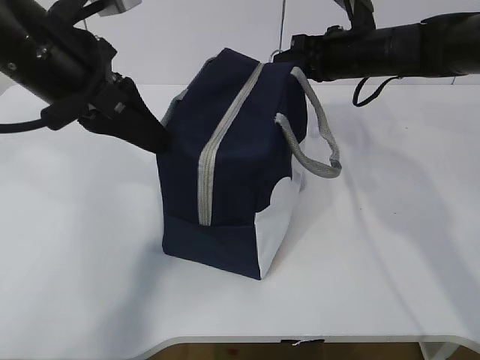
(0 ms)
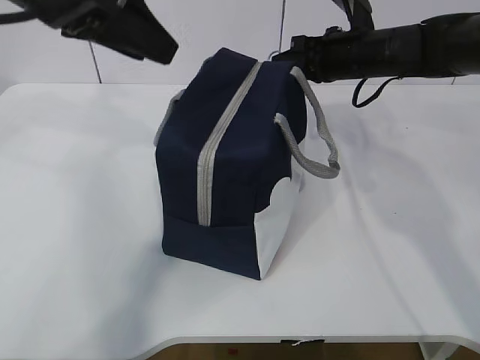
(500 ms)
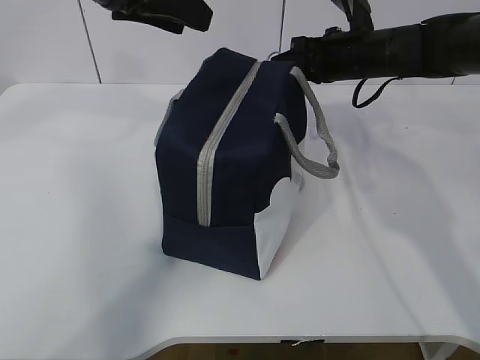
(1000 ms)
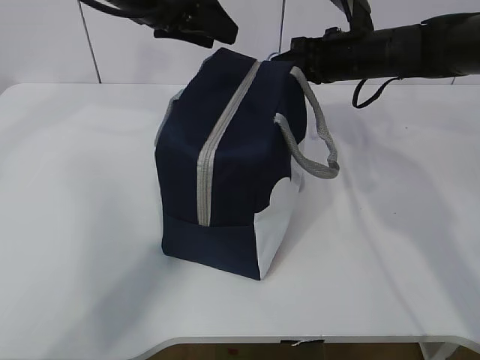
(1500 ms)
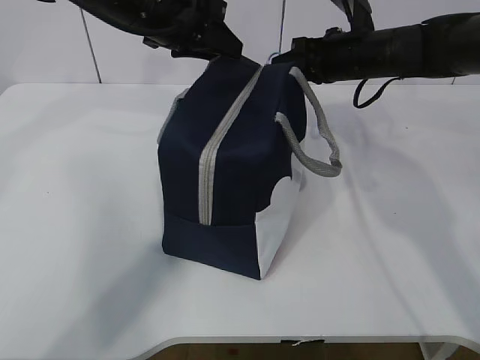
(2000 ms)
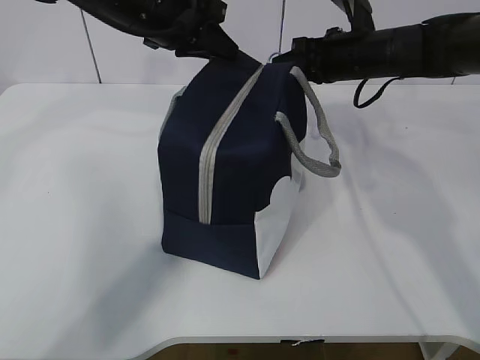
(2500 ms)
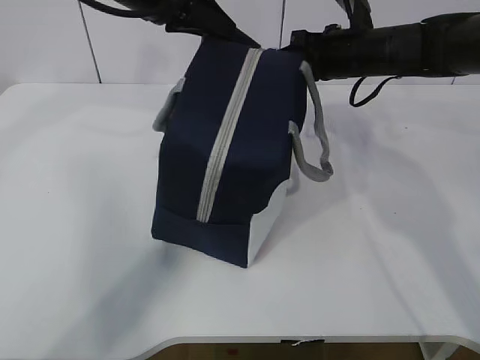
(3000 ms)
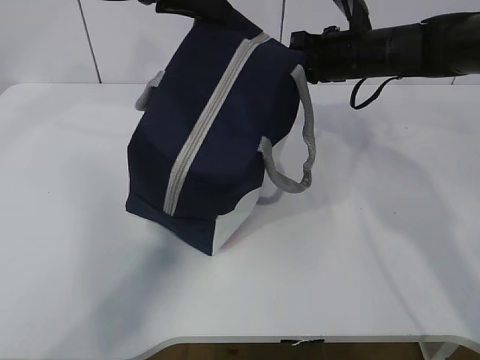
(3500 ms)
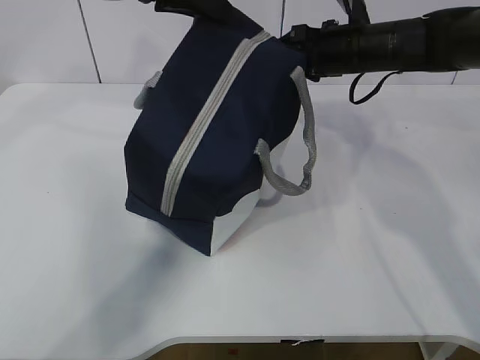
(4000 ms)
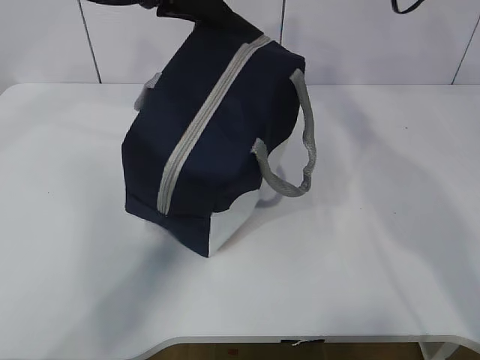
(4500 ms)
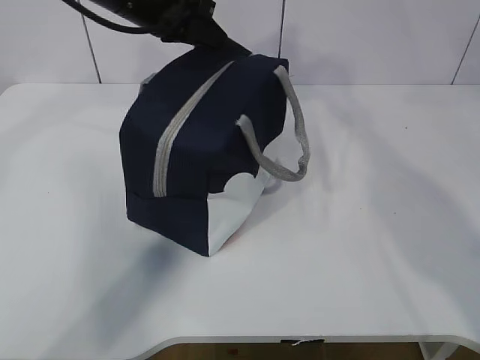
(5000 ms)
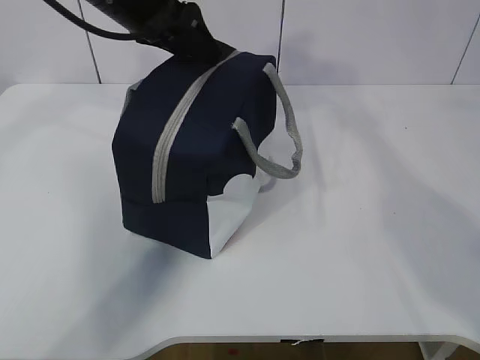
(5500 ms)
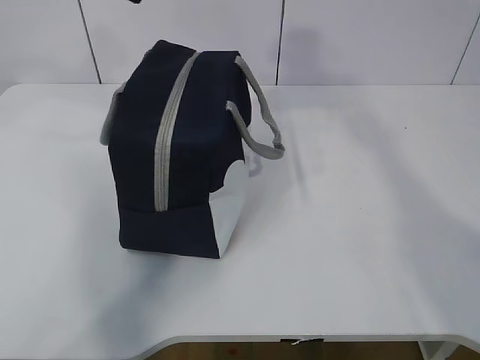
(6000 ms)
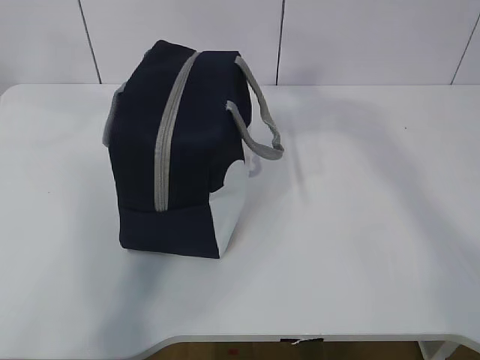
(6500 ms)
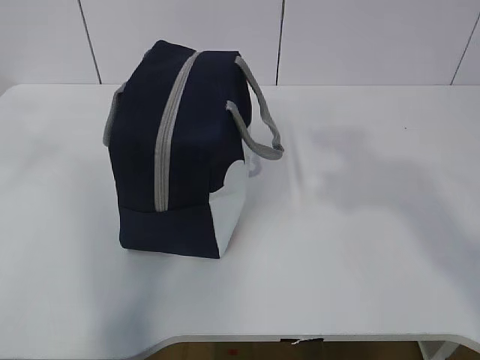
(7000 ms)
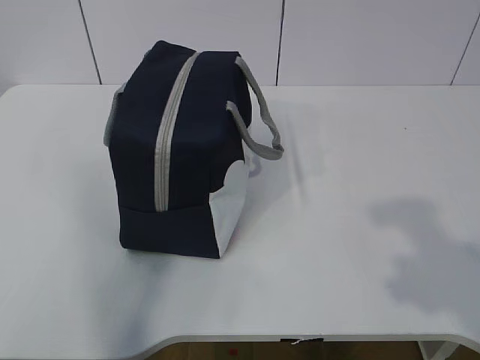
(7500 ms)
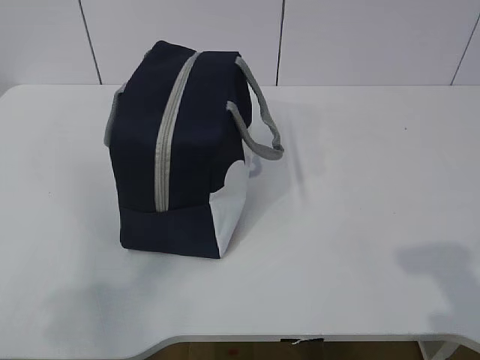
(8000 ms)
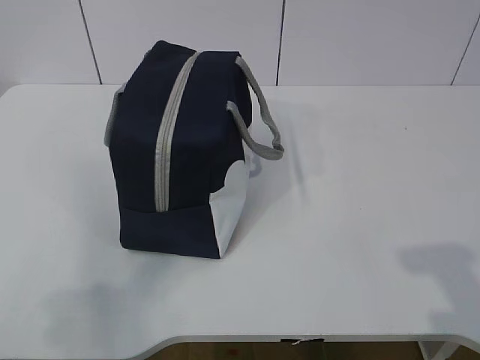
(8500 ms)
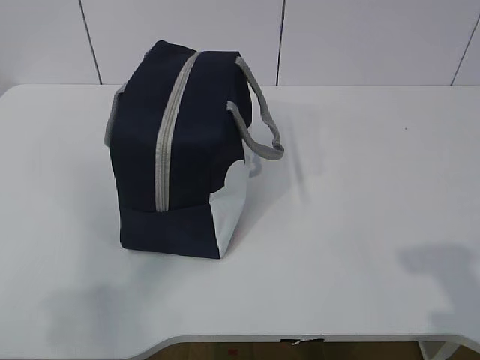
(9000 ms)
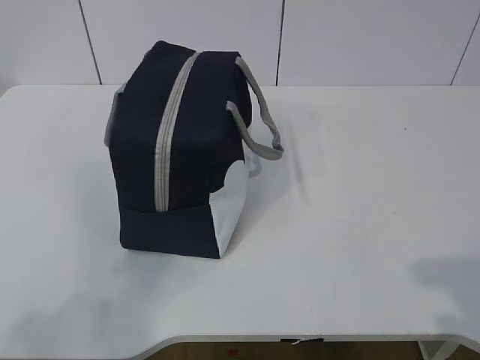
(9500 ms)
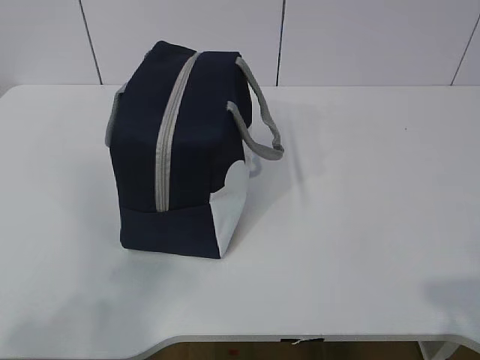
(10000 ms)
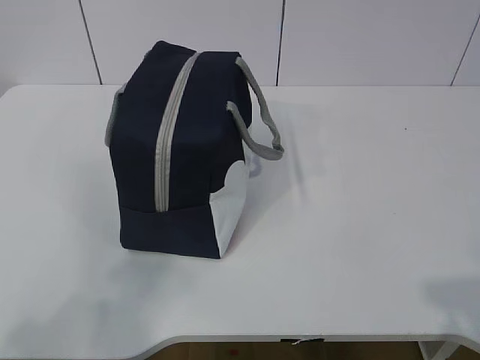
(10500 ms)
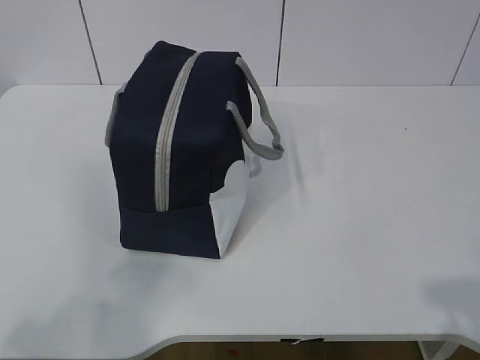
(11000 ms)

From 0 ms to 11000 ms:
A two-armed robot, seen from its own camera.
Step, from 0 ms to 6000 ms: zip up the zipper to close the bag.
From 0 ms to 2000 ms: The left gripper is displaced forward by roughly 15 cm, and opens.
From 2000 ms to 3500 ms: The left gripper shifts roughly 5 cm upward, and closes.
From 3500 ms to 5500 ms: The right gripper shifts some 25 cm upward and backward, and opens its fingers. Meanwhile the left gripper opens up.
From 5500 ms to 7500 ms: The left gripper shifts roughly 40 cm backward and to the left. Meanwhile the right gripper goes approximately 30 cm backward.
From 7500 ms to 9000 ms: The left gripper moves downward, approximately 10 cm.
